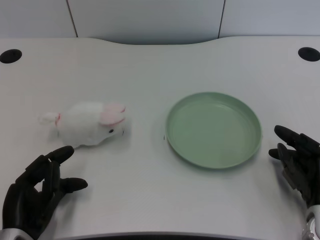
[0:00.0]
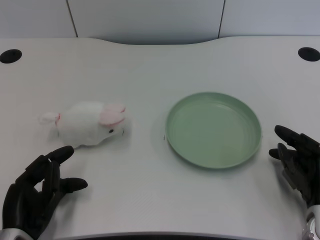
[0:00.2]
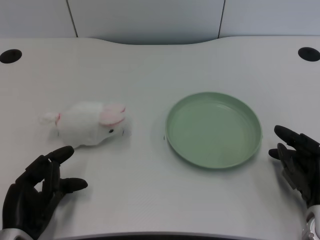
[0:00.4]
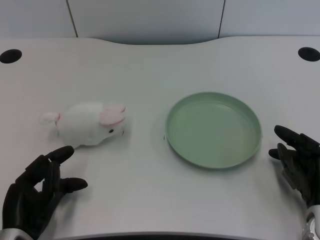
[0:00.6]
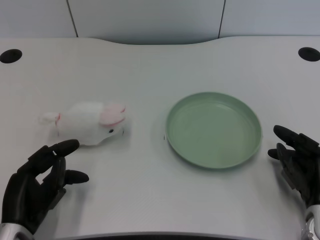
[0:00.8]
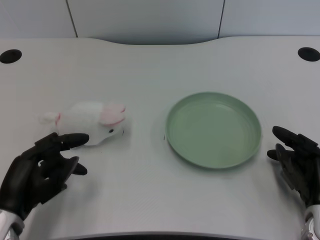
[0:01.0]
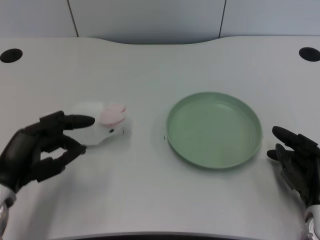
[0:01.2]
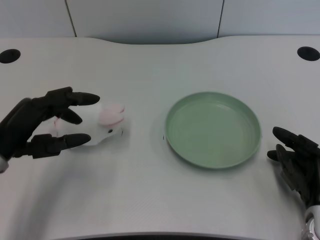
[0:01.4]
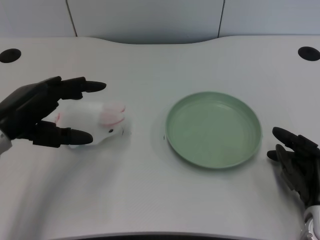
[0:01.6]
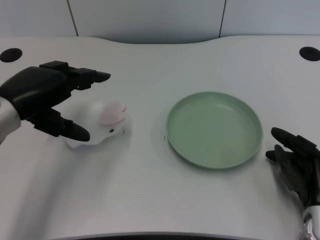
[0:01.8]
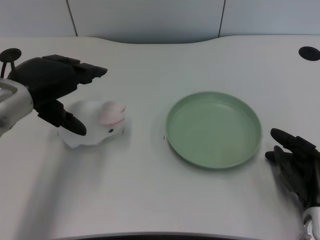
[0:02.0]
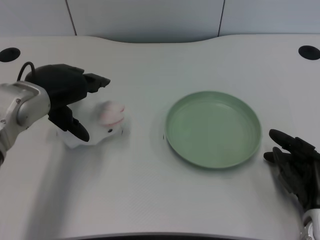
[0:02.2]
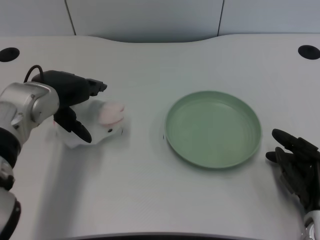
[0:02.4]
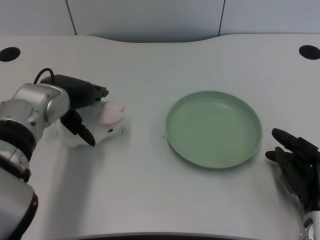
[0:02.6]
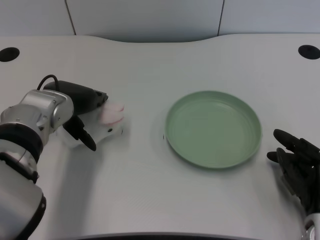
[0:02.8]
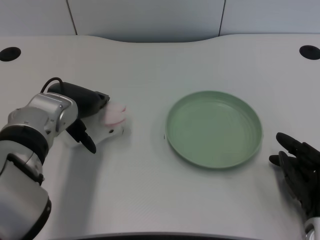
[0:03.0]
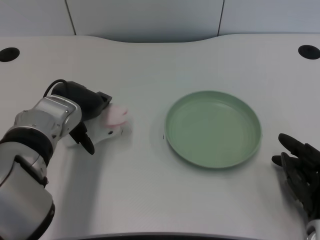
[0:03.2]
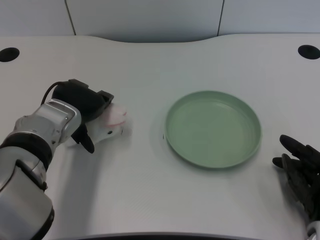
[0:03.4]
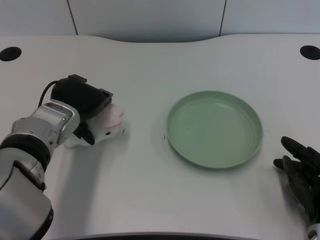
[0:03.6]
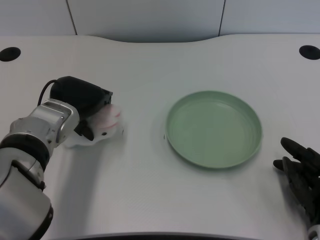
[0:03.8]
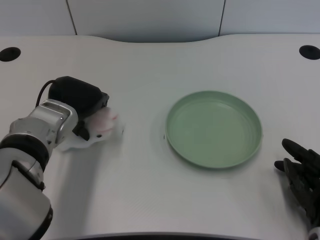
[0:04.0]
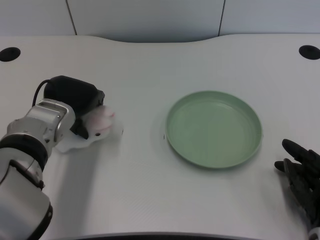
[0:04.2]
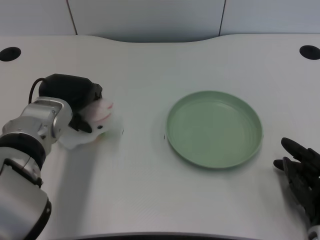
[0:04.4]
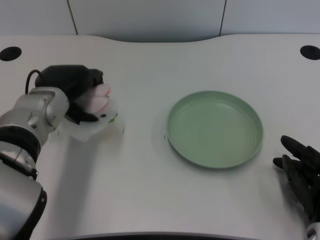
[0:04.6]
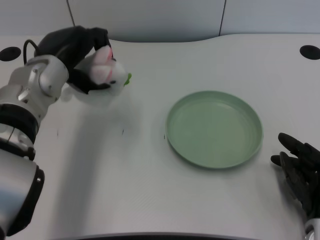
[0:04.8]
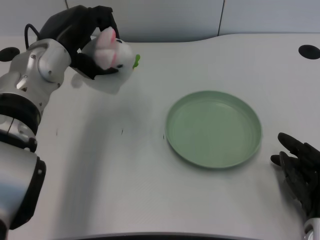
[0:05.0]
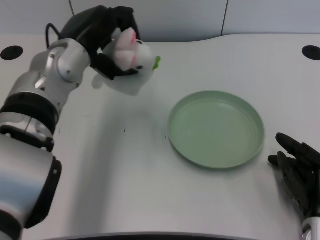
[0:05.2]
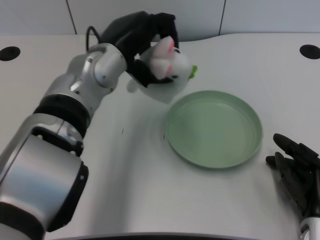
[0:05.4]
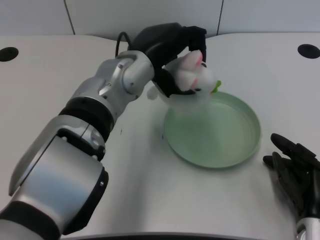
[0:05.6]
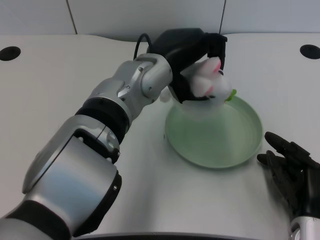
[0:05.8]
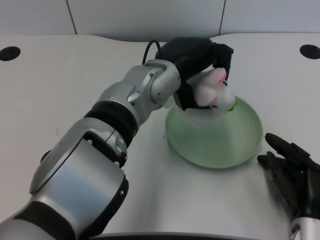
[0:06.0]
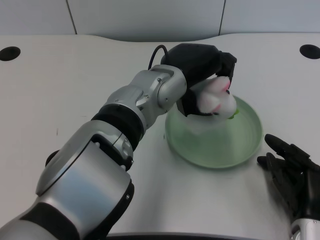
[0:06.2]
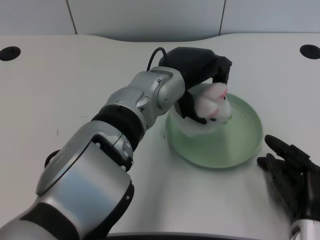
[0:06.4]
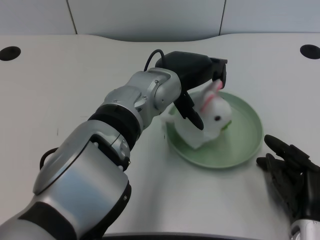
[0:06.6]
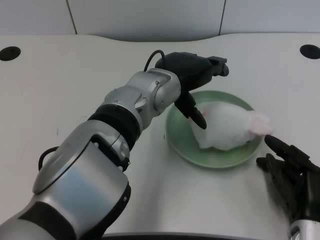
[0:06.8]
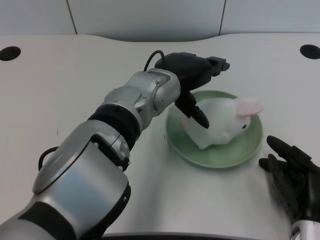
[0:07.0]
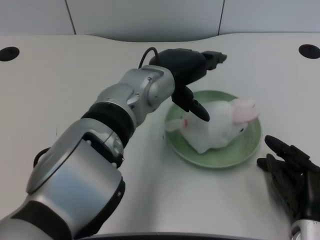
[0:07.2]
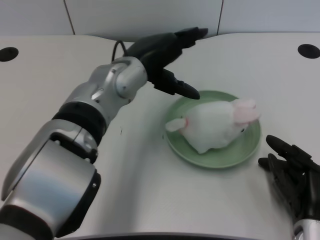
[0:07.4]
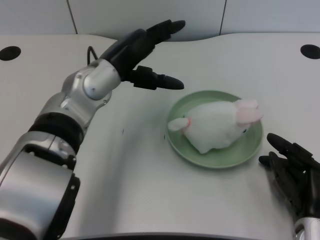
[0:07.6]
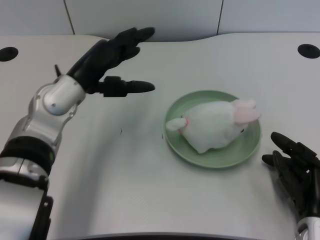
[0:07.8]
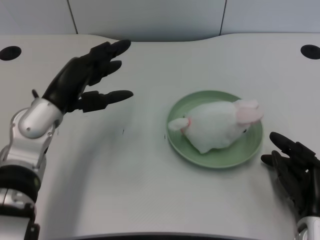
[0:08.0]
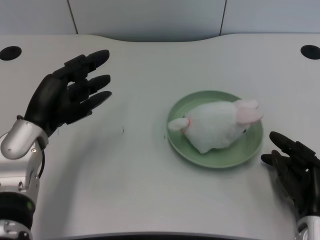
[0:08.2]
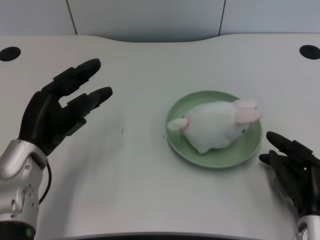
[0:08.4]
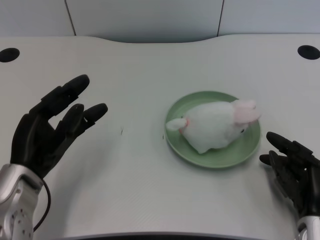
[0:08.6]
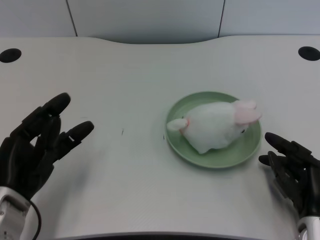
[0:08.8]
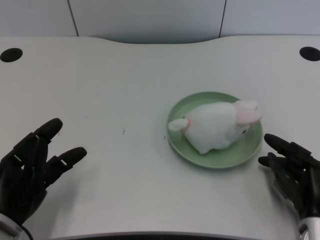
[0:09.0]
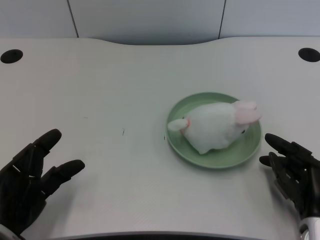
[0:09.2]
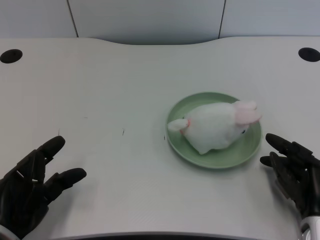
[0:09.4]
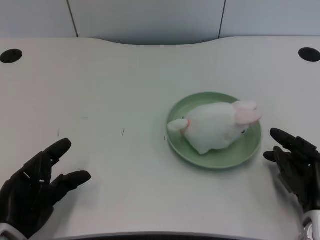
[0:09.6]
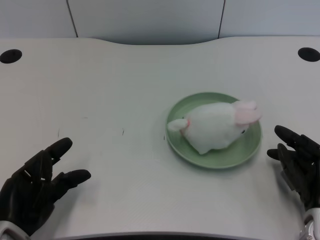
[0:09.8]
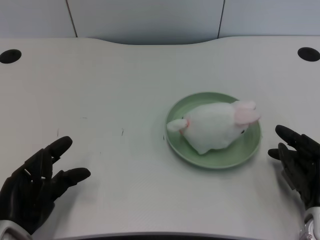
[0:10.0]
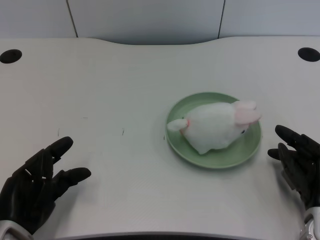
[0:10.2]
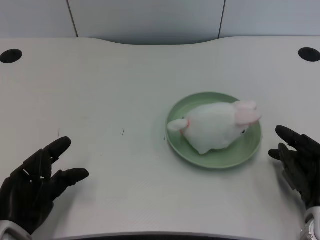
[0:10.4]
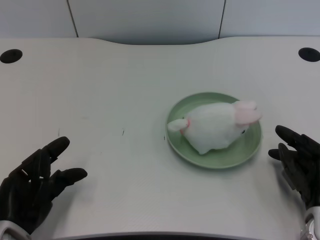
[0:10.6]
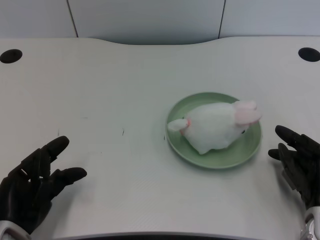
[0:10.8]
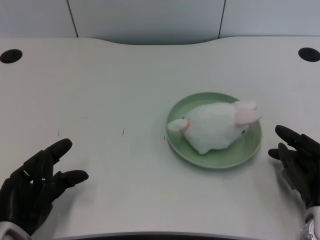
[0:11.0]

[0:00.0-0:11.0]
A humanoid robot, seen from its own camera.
Task of the whole recording: pick up the rabbit doll from the table and place it on the plate.
Step, 1.0 to 4.4 s: Grasp the rabbit doll with the left gripper.
Step, 4.8 to 7.0 s: Place the rabbit doll into the plate with the left gripper.
1.6 to 3.2 s: The left hand shifts some 10 cm to the right and forward.
3.2 to 4.8 s: The left hand goes about 5 cm upward.
4.8 to 6.2 s: The left hand travels to the right by some 15 cm.
6.2 to 7.8 s: The left hand shifts approximately 15 cm to the left.
7.8 to 9.4 s: The left hand shifts some 20 cm backward, downward and to the left.
9.4 to 11.0 s: The hands make only small movements.

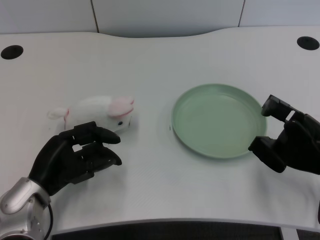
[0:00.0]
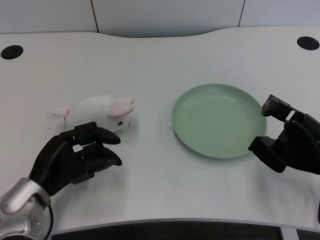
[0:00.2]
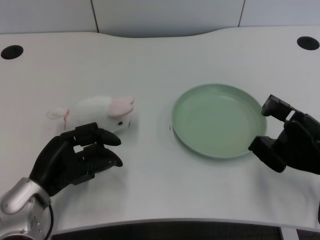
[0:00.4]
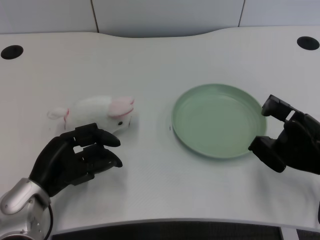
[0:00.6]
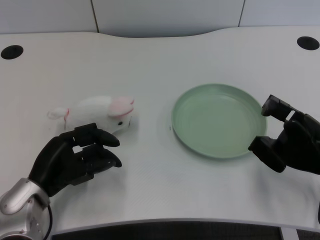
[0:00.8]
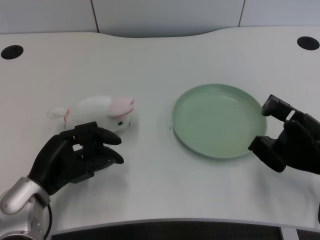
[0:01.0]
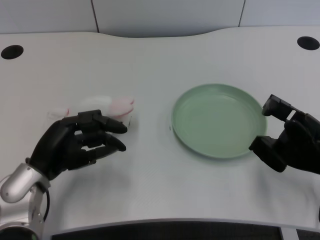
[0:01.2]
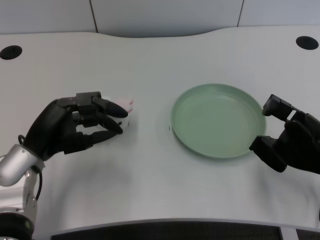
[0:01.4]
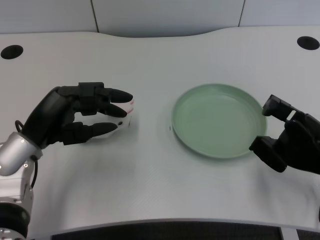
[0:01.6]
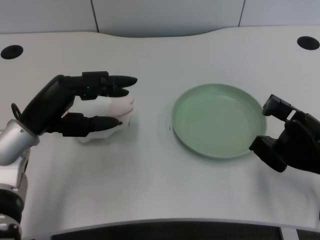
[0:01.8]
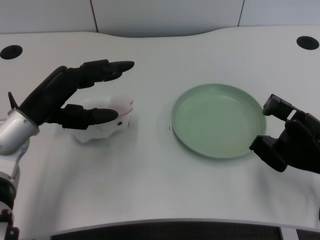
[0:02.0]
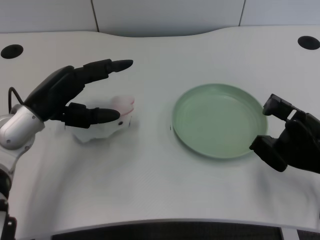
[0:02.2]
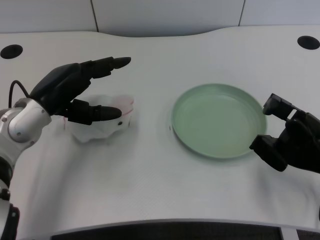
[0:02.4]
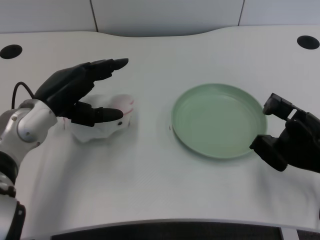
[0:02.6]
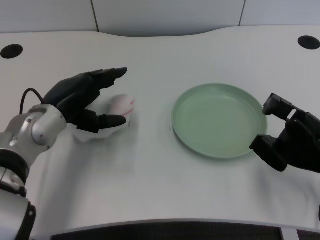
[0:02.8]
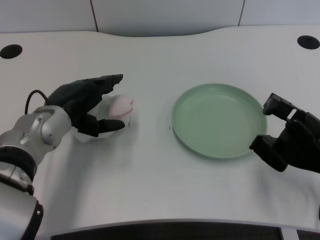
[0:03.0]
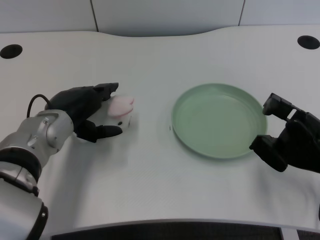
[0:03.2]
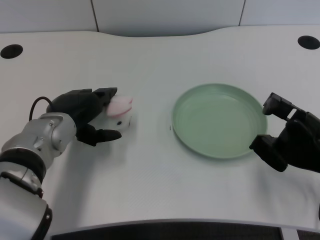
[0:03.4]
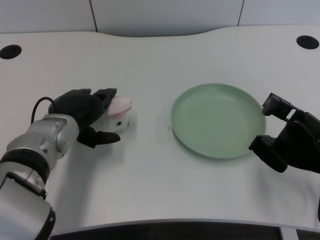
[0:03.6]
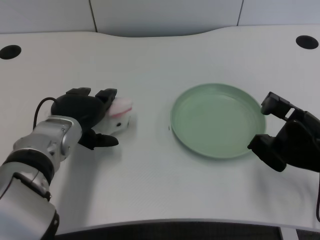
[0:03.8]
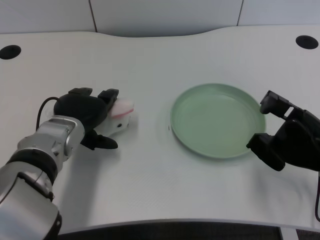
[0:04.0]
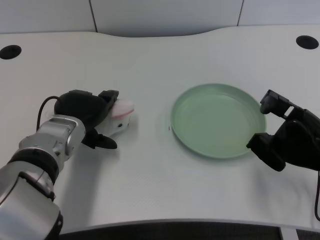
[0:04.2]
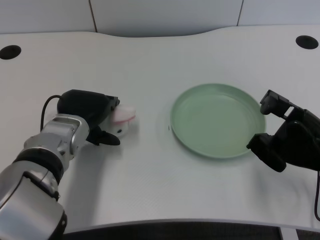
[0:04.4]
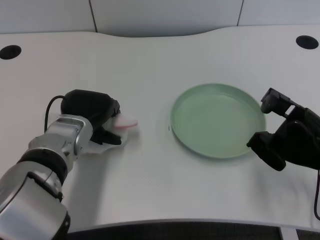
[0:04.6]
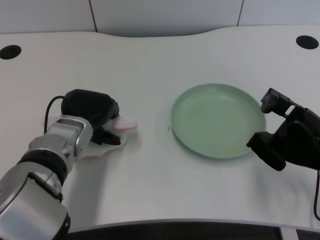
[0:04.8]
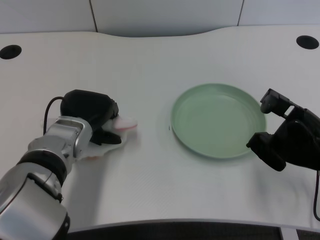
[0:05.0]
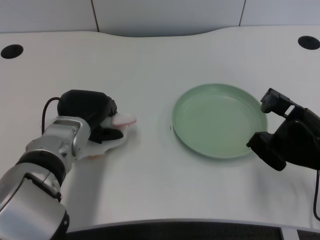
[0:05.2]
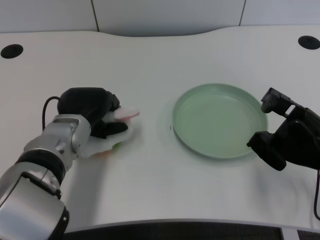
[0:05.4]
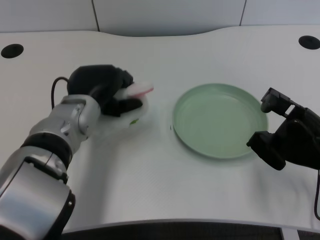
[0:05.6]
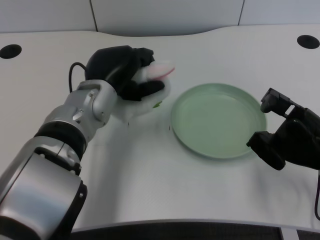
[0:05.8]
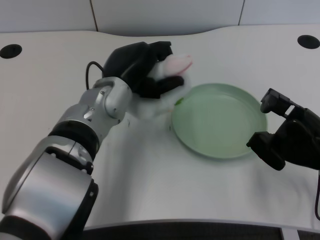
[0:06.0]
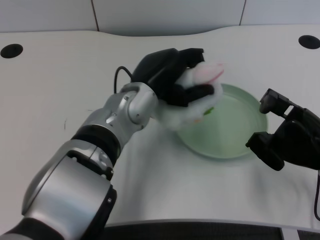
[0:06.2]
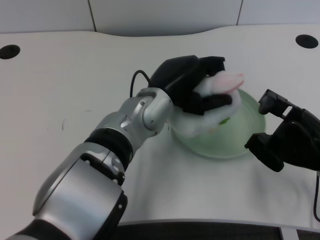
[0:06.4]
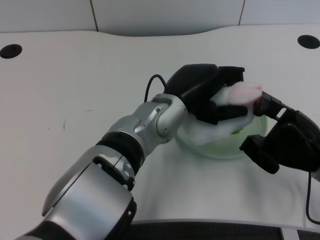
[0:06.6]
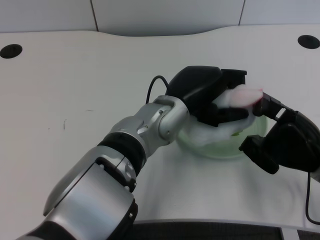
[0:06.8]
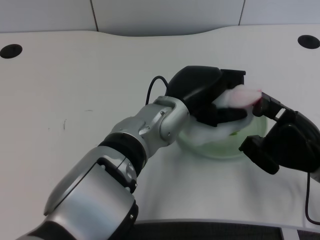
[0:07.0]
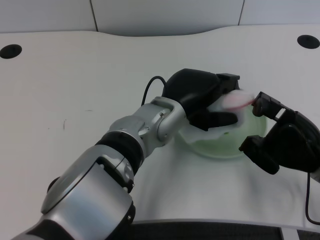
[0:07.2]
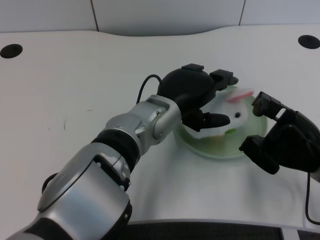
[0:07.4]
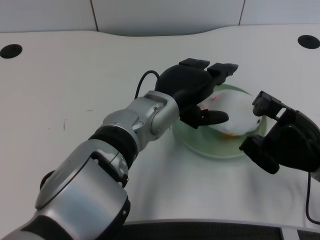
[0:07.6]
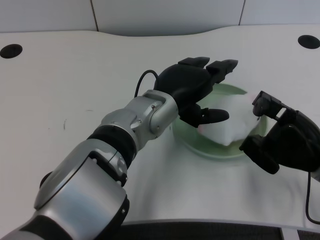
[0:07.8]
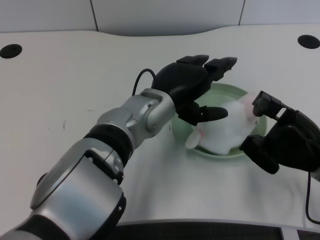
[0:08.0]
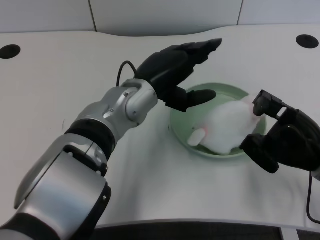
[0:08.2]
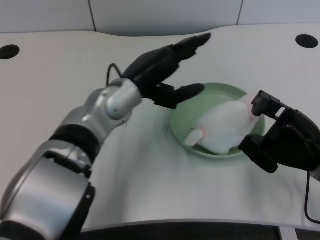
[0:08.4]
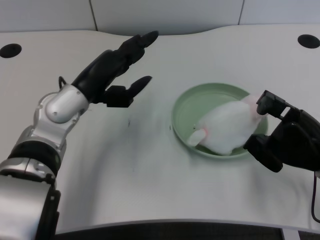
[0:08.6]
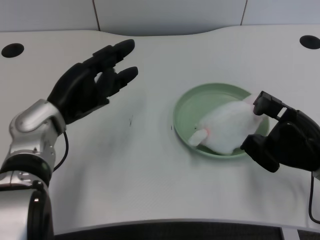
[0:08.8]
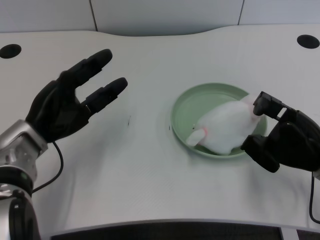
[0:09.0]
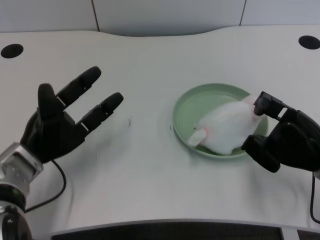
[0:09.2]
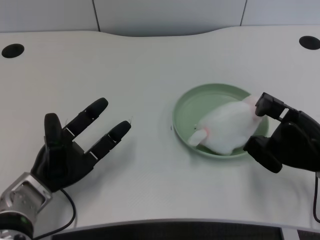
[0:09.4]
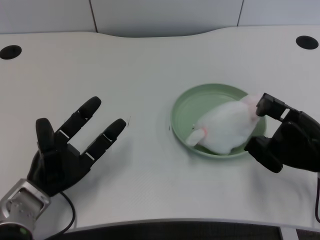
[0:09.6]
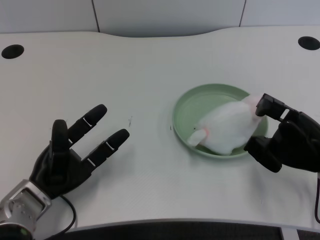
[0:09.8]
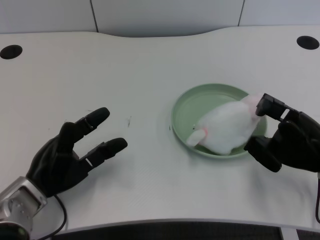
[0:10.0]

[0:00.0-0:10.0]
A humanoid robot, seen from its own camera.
Task of the whole recording: pick up the rabbit doll from the table and place it on the plate.
Step, 1.2 to 5.4 s: Grasp the rabbit doll with the left gripper.
Step, 5.6 to 7.6 s: Place the rabbit doll into the plate with the left gripper.
1.4 to 2.8 s: The left hand changes place by approximately 5 cm.
4.2 to 5.8 s: The left hand goes roughly 5 cm to the right.
5.8 to 7.2 s: The left hand heads to the right, covering approximately 10 cm.
7.2 to 8.6 s: The left hand shifts some 15 cm to the left.
8.6 to 10.0 s: The left hand is displaced downward, to the left and backward by approximately 15 cm.

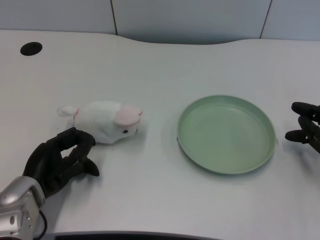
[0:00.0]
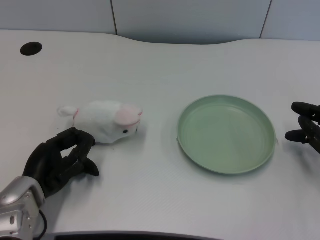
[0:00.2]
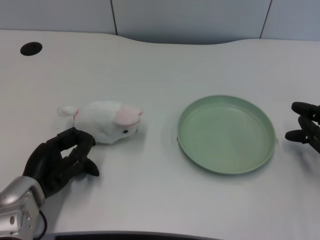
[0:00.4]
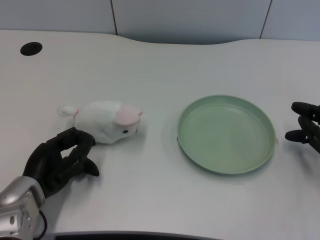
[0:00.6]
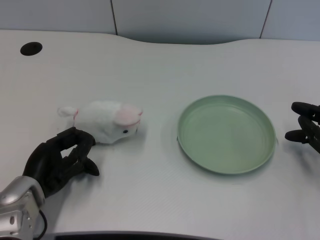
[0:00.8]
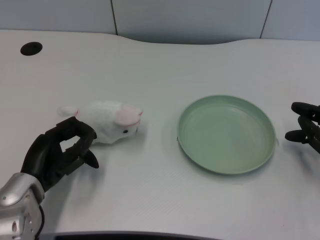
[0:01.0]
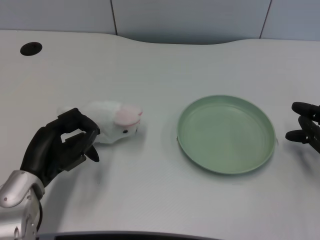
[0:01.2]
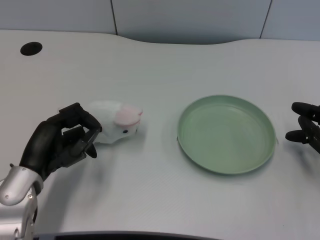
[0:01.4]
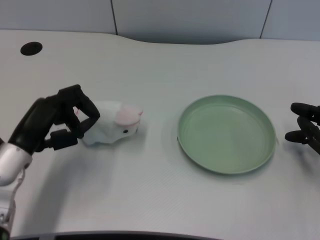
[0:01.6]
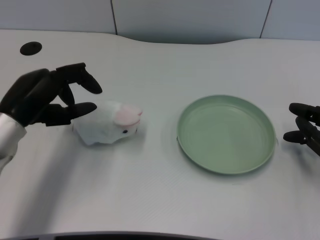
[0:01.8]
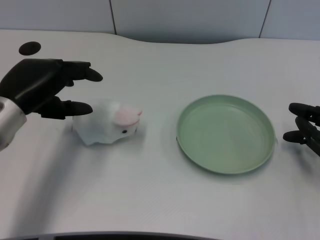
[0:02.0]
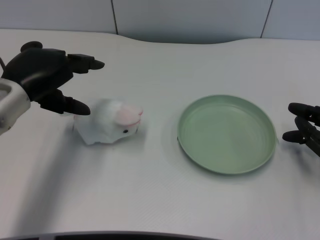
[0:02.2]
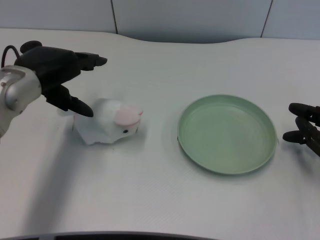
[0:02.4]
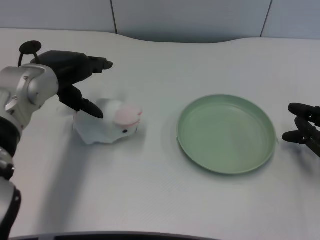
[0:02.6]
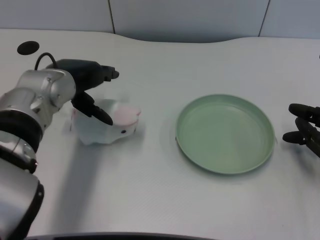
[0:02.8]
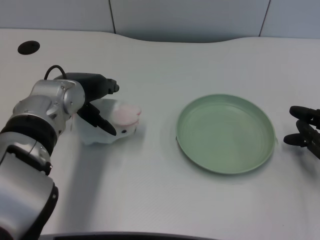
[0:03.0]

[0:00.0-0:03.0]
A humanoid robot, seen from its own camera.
Task of the whole recording: pick up the rabbit doll from the table and place it on the plate.
1.6 to 3.0 s: The left hand shifts some 10 cm forward and to the right.
